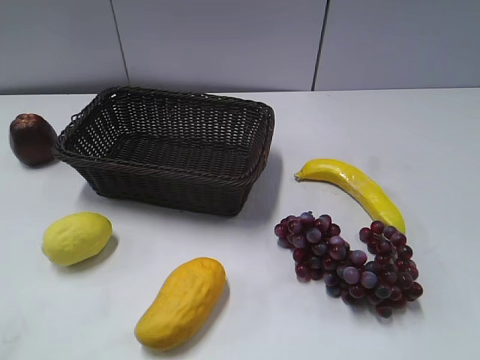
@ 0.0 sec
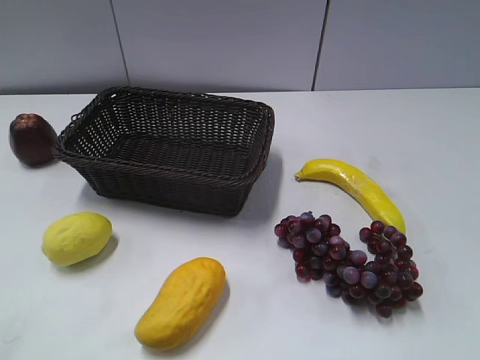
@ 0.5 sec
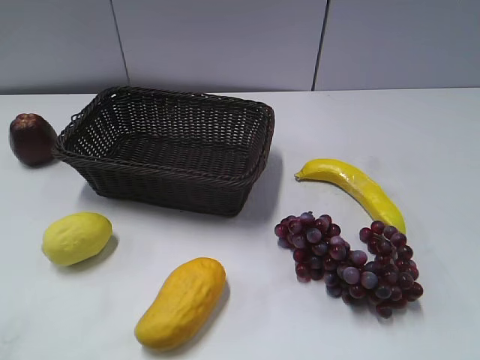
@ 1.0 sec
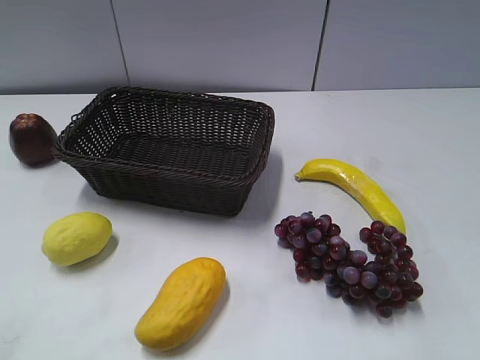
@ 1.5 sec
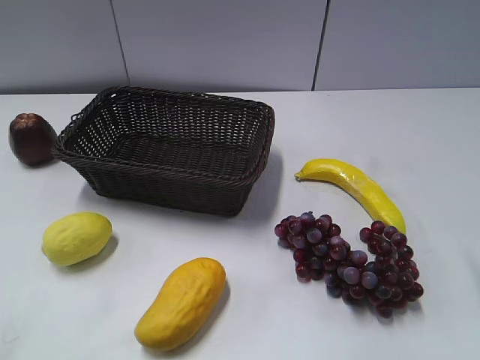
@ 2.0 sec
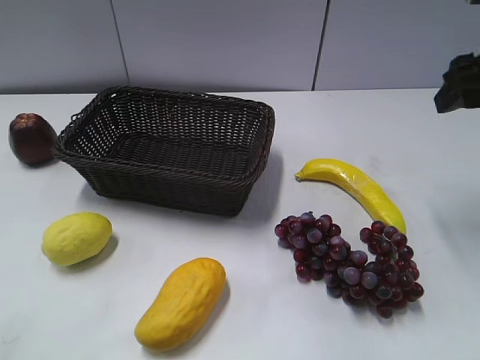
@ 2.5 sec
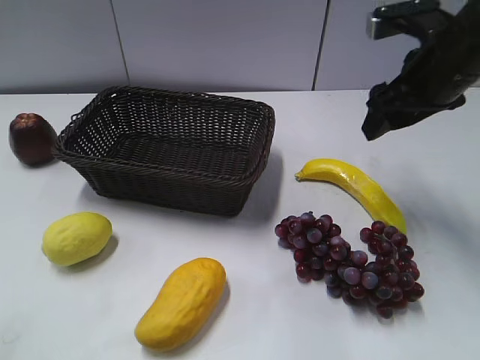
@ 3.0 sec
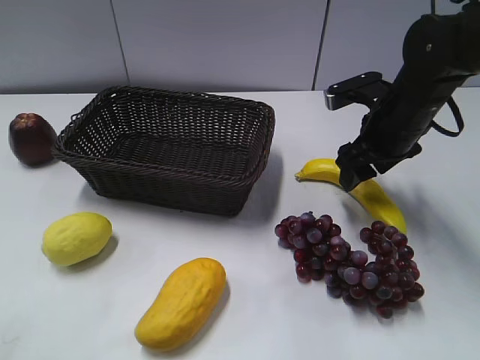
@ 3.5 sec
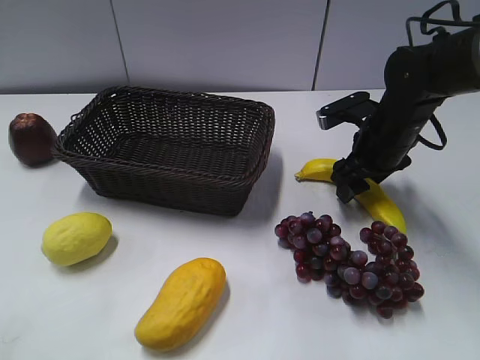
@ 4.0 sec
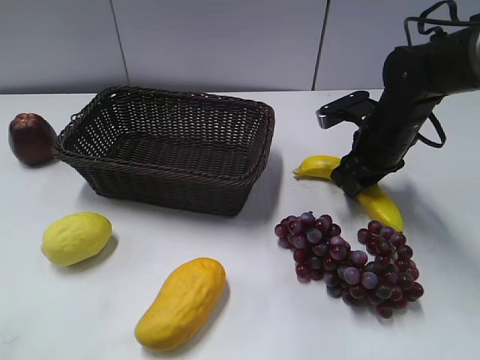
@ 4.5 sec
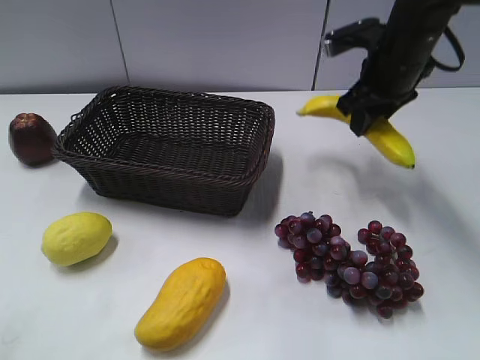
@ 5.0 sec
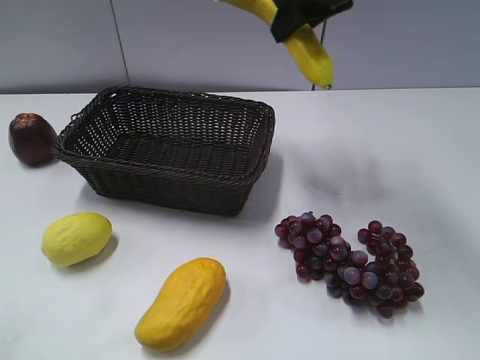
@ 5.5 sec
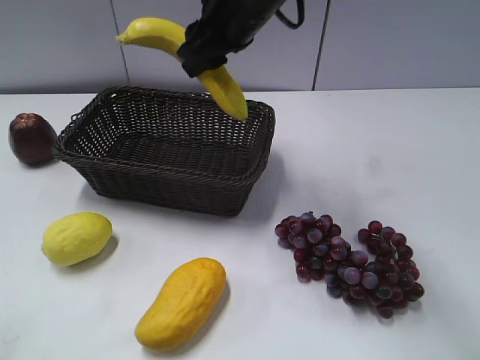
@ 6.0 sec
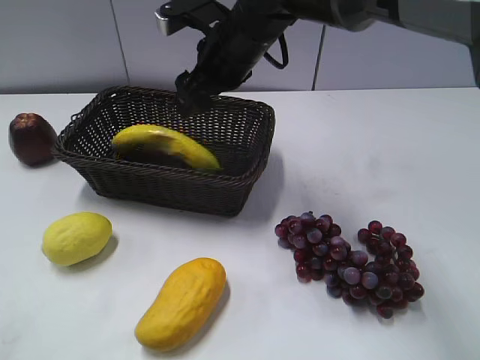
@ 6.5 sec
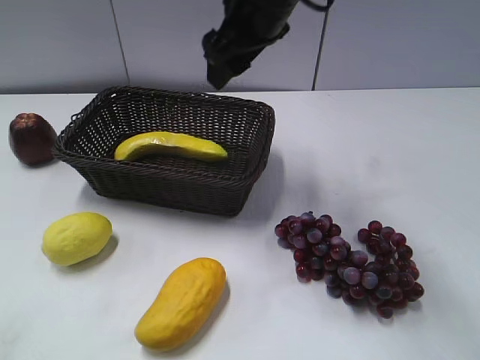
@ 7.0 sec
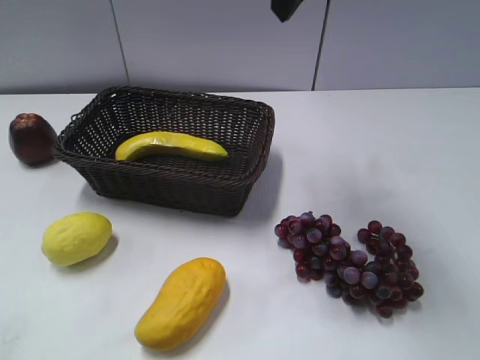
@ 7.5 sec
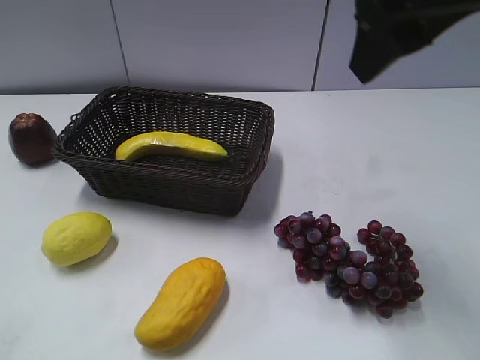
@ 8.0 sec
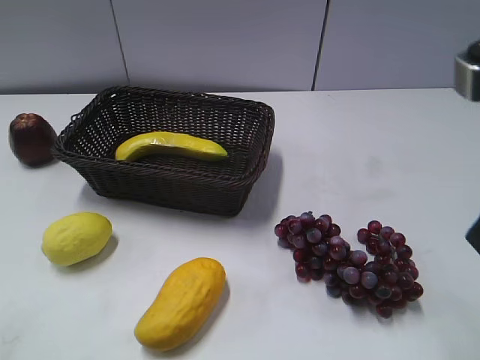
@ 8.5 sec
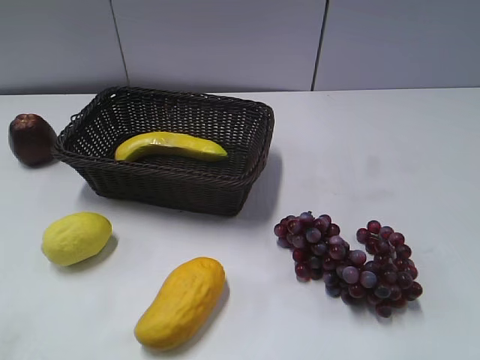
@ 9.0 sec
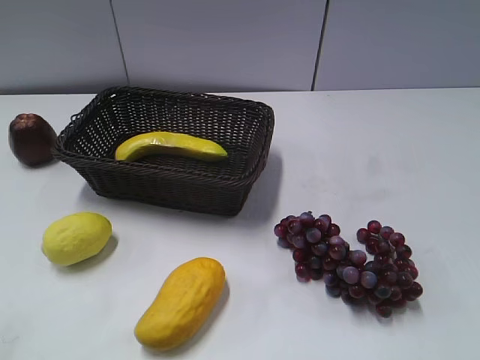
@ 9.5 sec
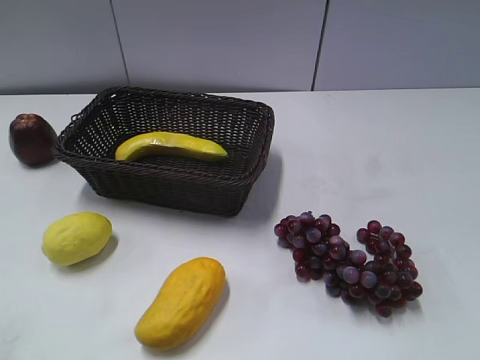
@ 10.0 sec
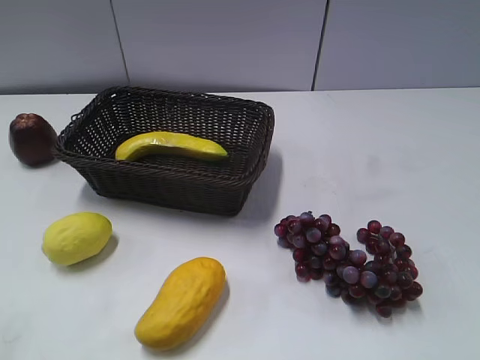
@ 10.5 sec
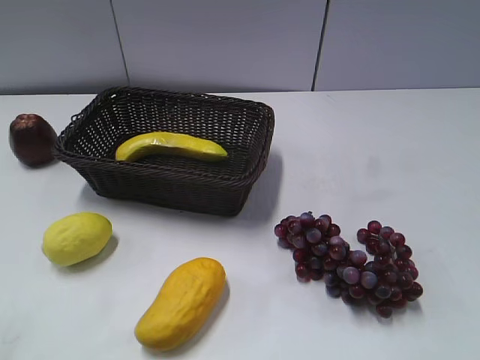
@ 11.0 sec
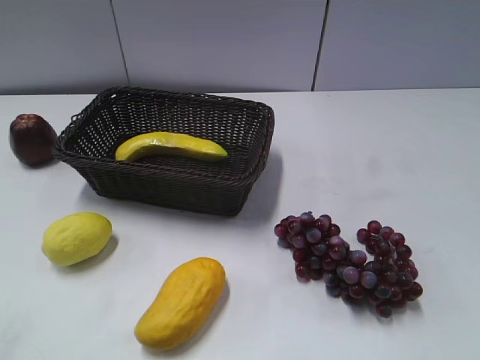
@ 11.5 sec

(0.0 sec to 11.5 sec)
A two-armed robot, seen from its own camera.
Step, 2.5 sec - 4.0 sec: Grasp the banana with right gripper.
Step, 4.5 sec - 6.5 sec: Place the banana in the basket with right gripper.
2.0 sec - 4.0 sec: The right gripper moves forward, downward and to the left, some 25 cm.
4.0 sec - 6.0 sec: The right gripper moves to the left and upward, approximately 25 cm, and closes its fingers.
6.0 sec - 7.5 sec: The right gripper goes about 15 cm upward, to the right and backward, and opens.
7.5 sec - 9.5 sec: The right gripper moves backward and to the right, approximately 35 cm.
